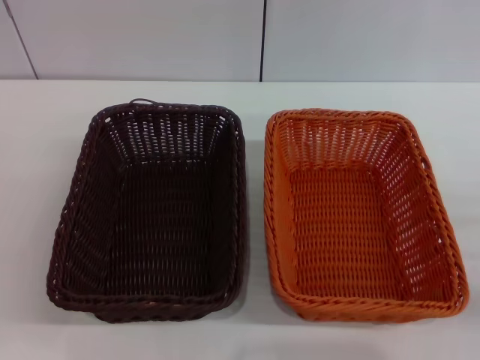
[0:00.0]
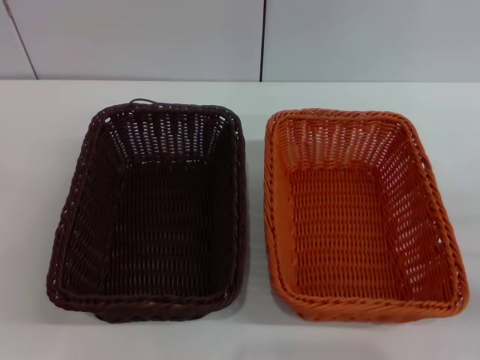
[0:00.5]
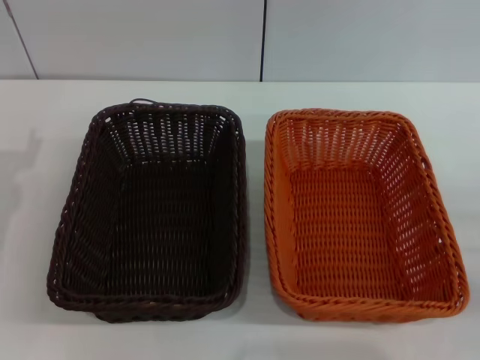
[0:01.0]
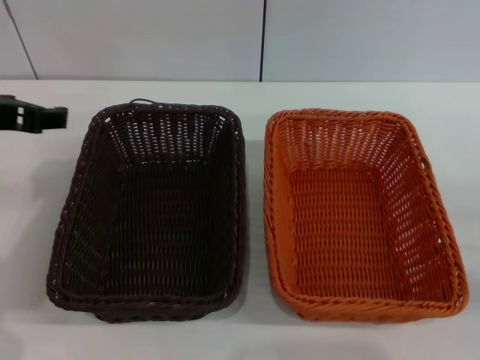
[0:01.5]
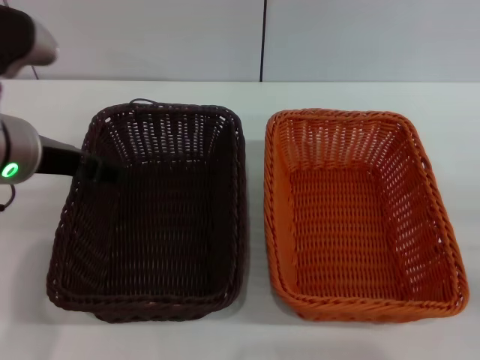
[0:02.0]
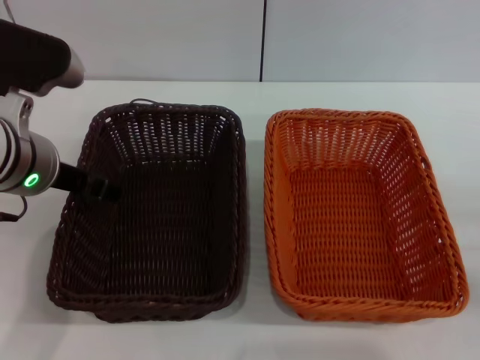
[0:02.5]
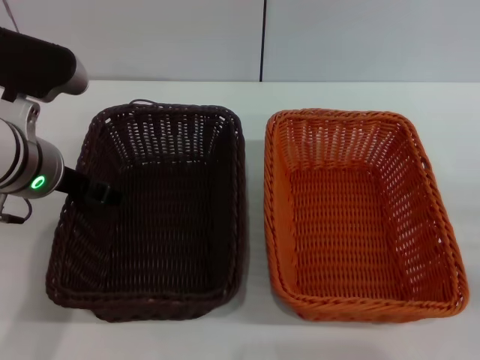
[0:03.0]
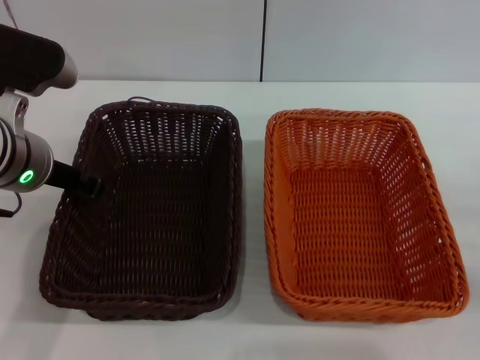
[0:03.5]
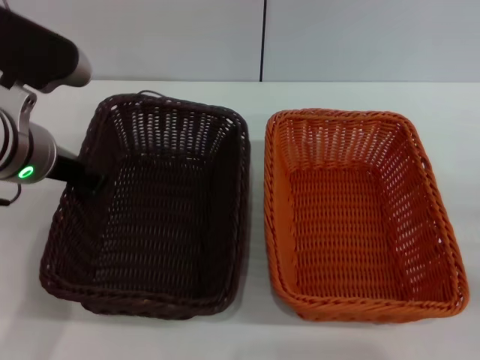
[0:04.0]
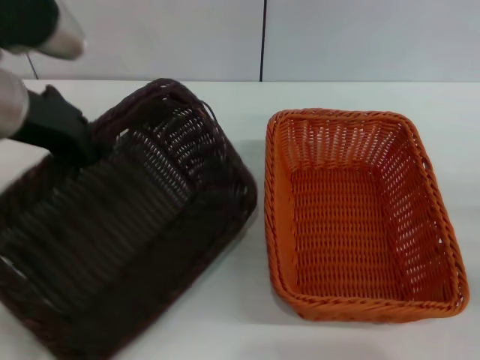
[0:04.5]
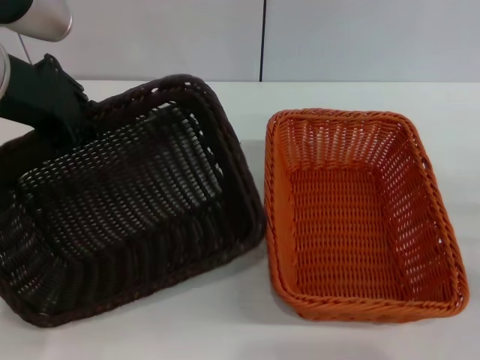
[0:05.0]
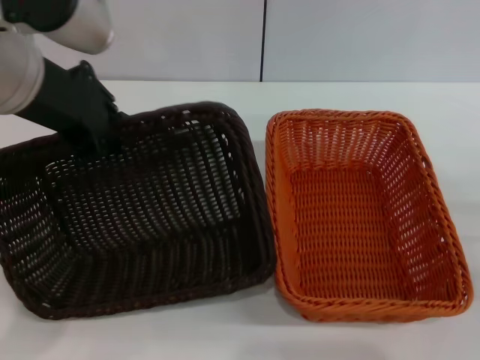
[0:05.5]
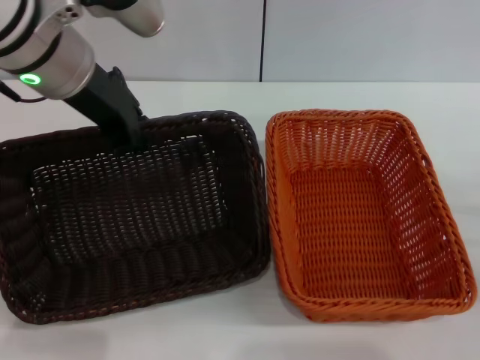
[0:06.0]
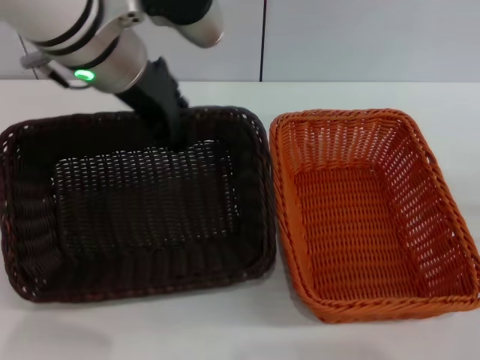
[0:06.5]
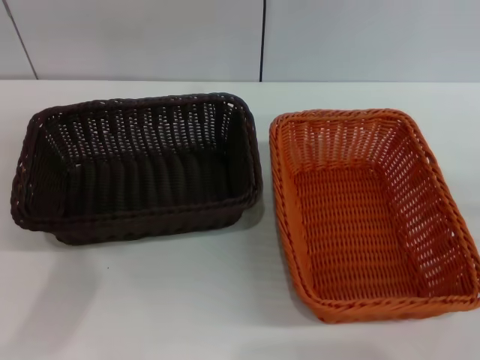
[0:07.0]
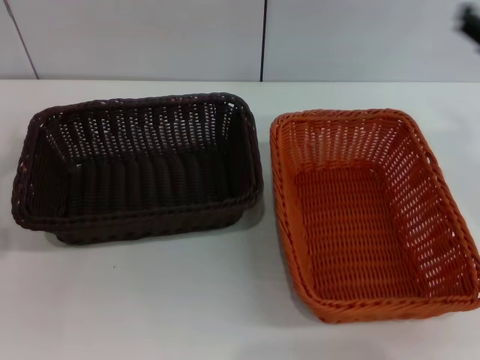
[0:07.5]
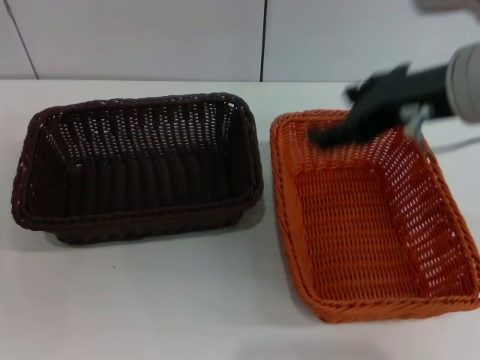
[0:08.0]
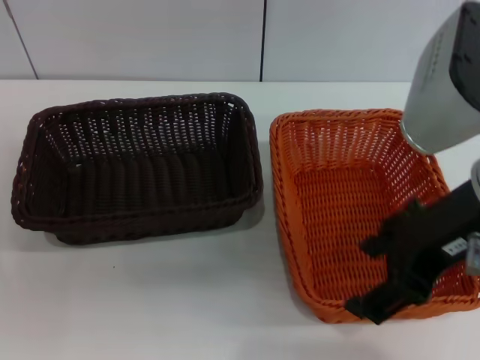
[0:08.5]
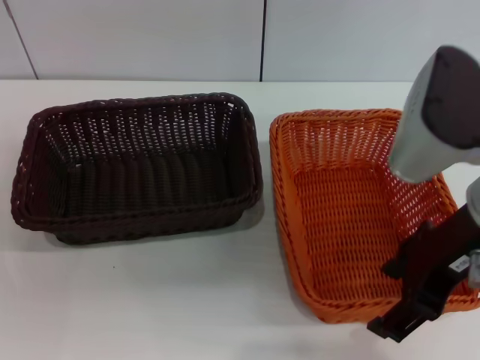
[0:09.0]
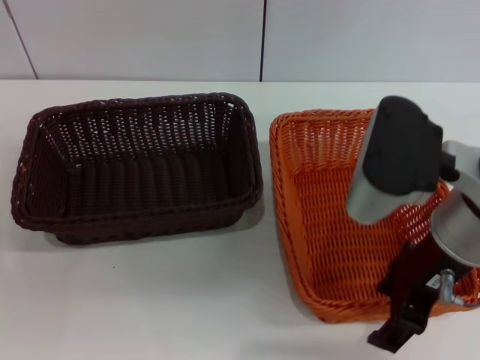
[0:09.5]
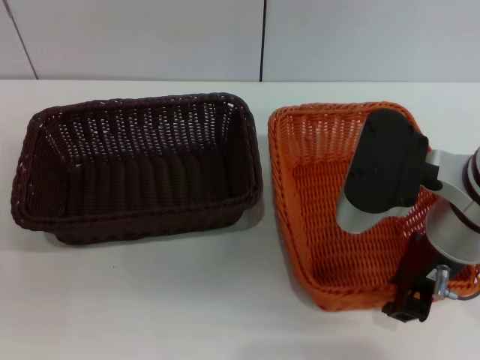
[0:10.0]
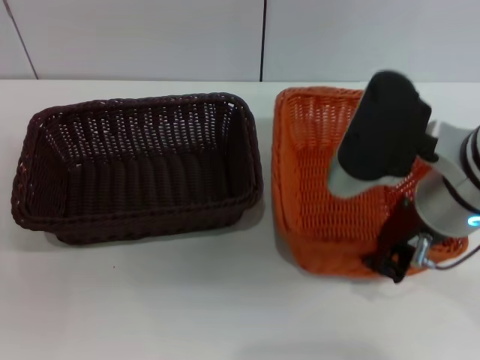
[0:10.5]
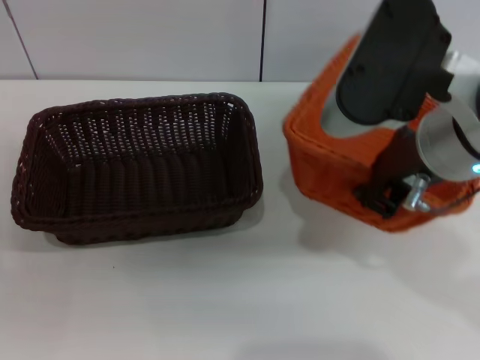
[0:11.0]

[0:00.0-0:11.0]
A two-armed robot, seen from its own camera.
Step, 0:00.0 to 0:03.5: Pick up the dark basket with the left gripper.
Step, 0:04.0 to 0:06.5: Place the dark basket in the center of view with the left gripper.
Step, 0:07.0 to 0:10.5: Pick up the light basket with the right gripper.
0:00.0 to 0:02.0: The left gripper shifts some 25 cm upward and to the right.
0:02.0 to 0:03.5: The left gripper closes its fingers.
0:03.5 to 0:05.5: The left gripper is displaced upward by roughly 10 cm, and closes up.
0:05.5 to 0:07.5: The right gripper heads upward, forward and to the left, covering some 15 cm. The left gripper moves to the left and downward, approximately 20 cm, and opens.
0:07.5 to 0:09.0: The right gripper shifts about 10 cm to the left and backward.
0:09.0 to 0:11.0: The right gripper closes up.

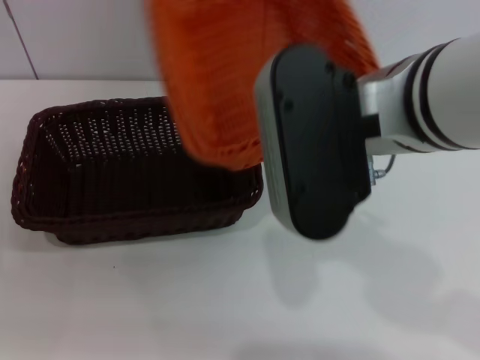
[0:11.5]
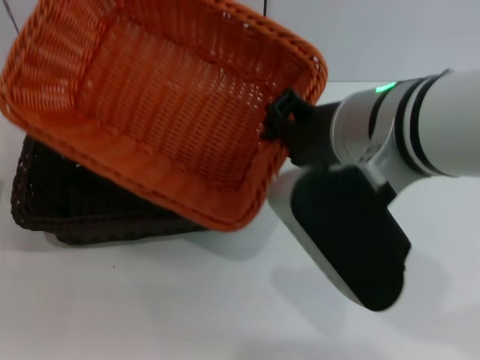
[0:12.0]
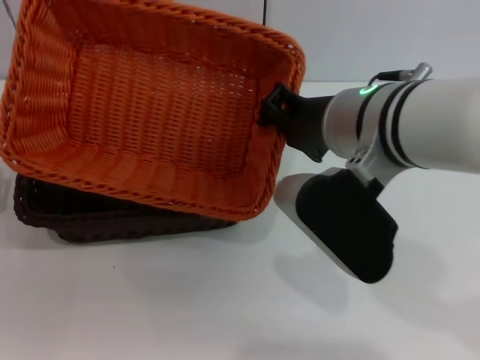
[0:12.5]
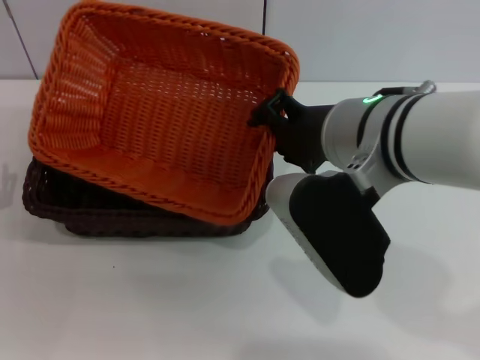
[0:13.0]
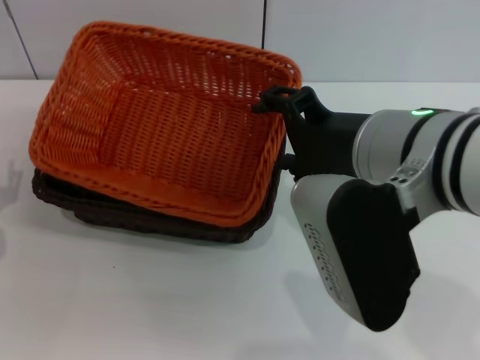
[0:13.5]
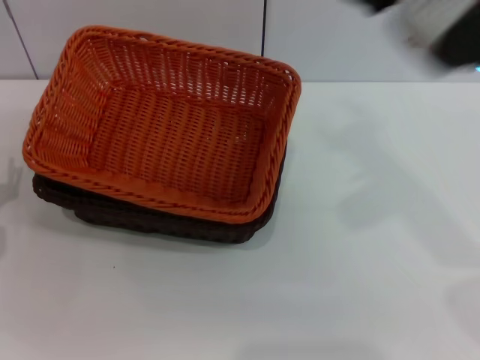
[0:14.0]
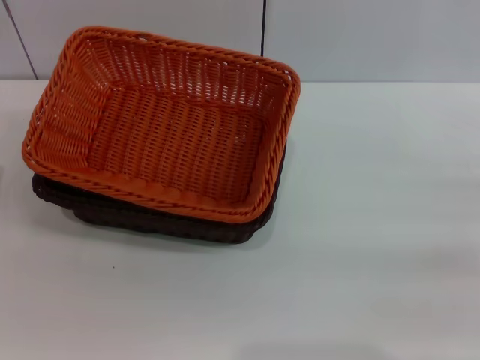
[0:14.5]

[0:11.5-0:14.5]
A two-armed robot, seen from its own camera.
Step, 0:11.5 to 0:13.5: Place the light basket on the dark basket with the right gripper.
0:11.5 to 0:13.0: The right gripper travels downward by some 5 cm.
0:13.0 to 0:14.5: The right gripper goes roughly 30 cm to the right and downward, and opens.

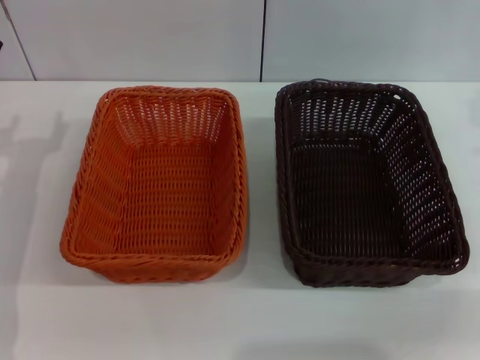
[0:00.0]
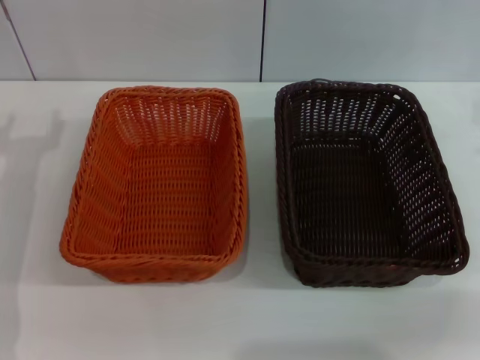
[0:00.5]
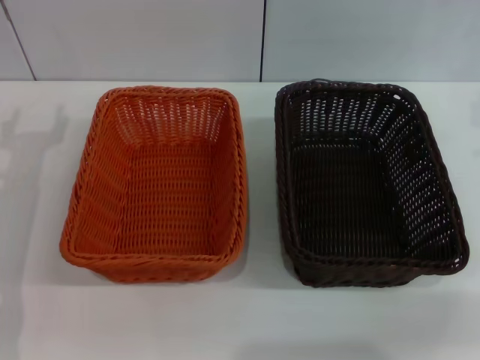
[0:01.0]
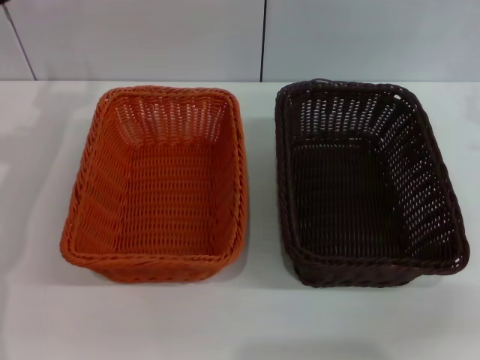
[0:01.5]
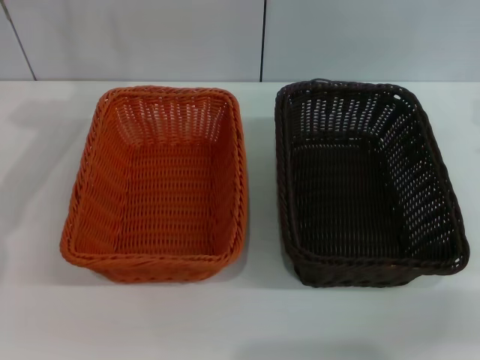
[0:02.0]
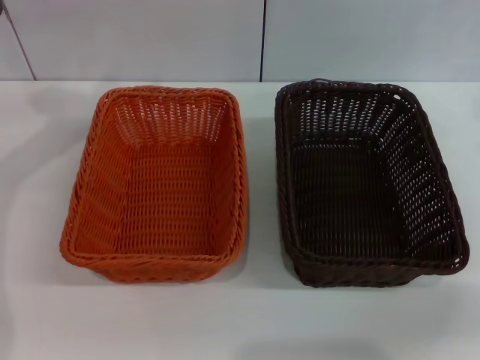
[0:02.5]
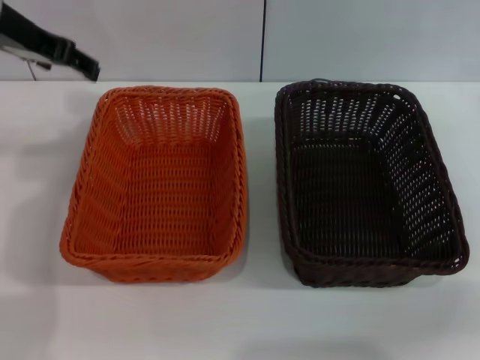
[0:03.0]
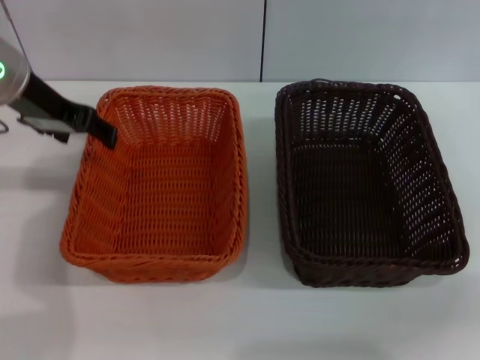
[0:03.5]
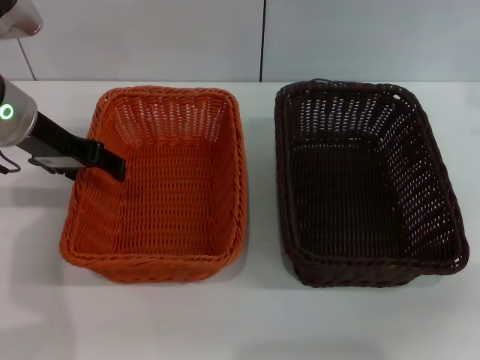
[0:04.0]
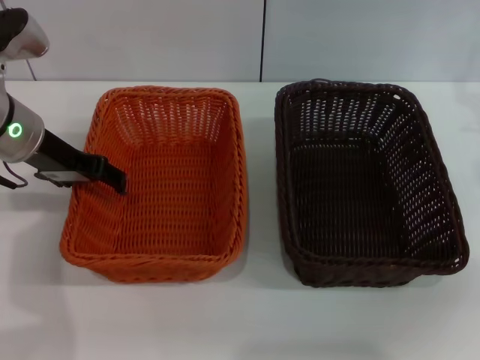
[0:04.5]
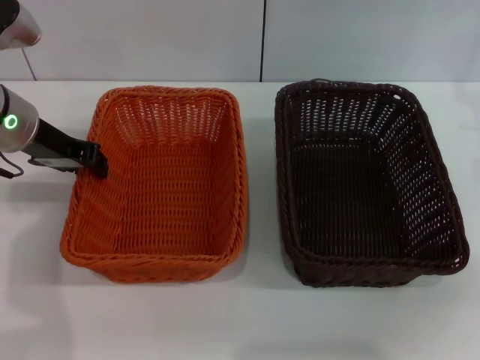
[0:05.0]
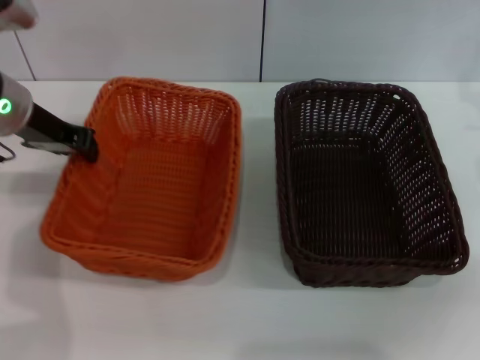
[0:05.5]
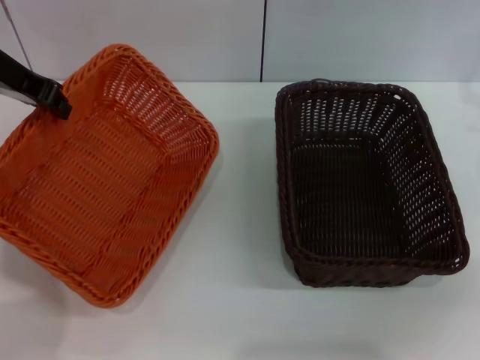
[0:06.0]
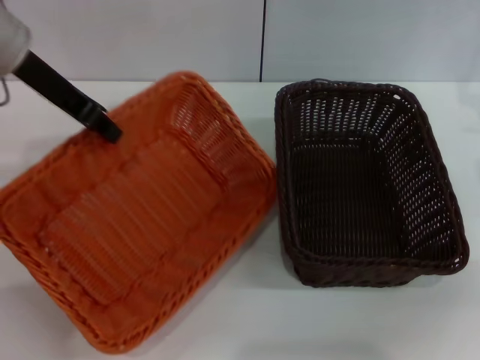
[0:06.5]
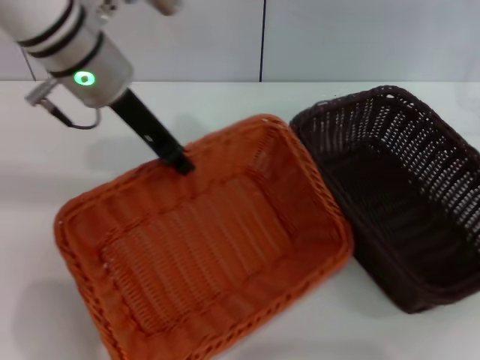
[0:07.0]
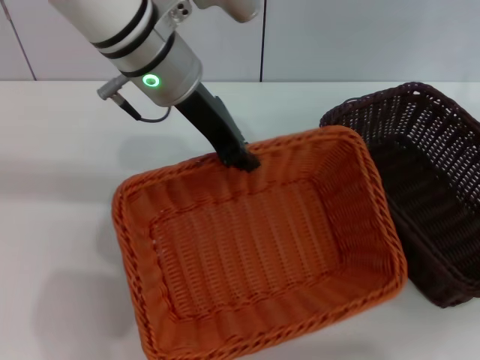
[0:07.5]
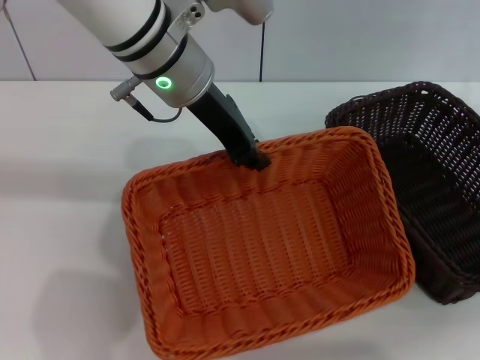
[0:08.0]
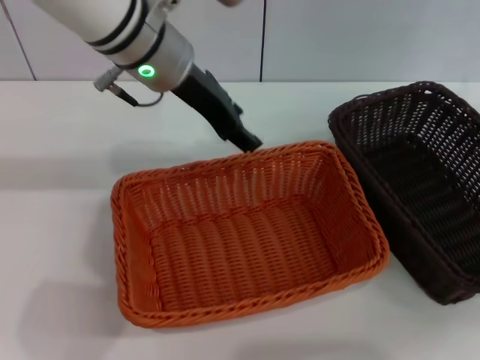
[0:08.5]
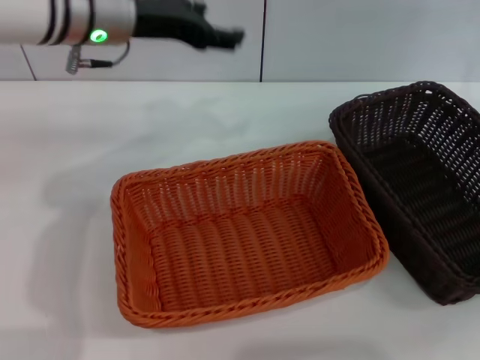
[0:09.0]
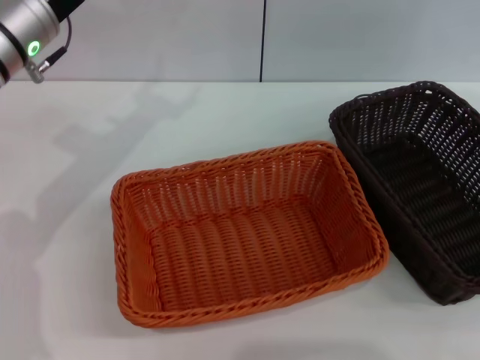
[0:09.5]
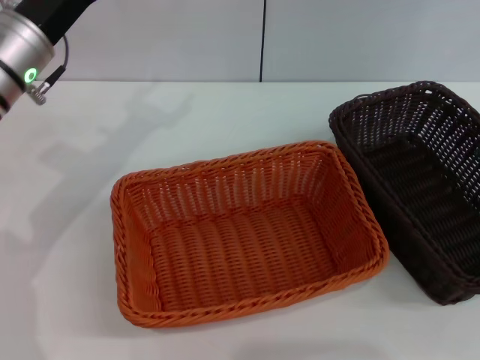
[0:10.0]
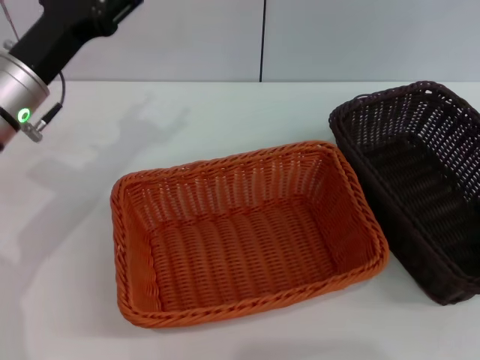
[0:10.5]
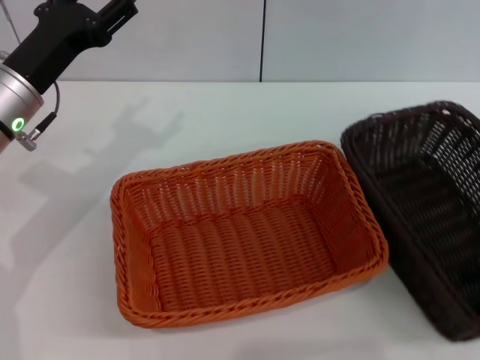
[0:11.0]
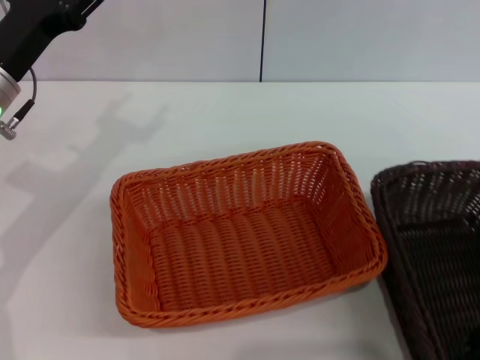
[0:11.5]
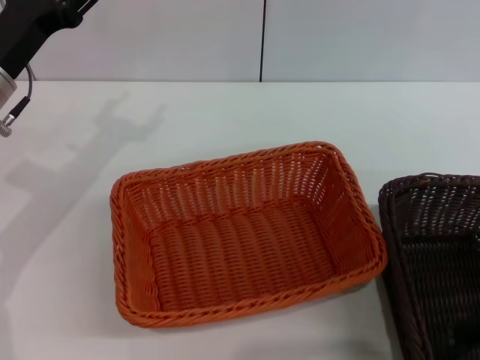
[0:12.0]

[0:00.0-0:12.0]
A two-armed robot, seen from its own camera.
Step, 0:00.0 to 0:05.5: Pick up the light basket with the left gripper.
Step, 0:06.0 to 0:08.0: Place the light basket in the center of view with the left gripper.
0:02.0 to 0:04.0: The left gripper is displaced backward by approximately 5 cm.
0:04.0 to 0:06.0: The left gripper is displaced upward by roughly 5 cm, and closes.
0:06.0 to 0:08.0: The left gripper goes about 20 cm to the right.
0:08.0 to 0:10.0: The left gripper travels to the left by about 15 cm, and opens up. The right gripper shifts about 10 cm upward.
0:10.0 to 0:12.0: The right gripper heads backward, downward and to the left, covering approximately 15 cm.
